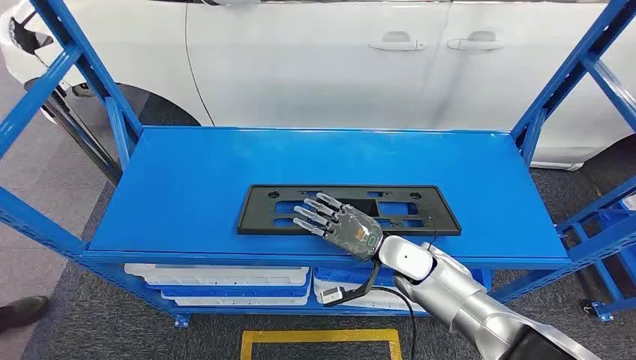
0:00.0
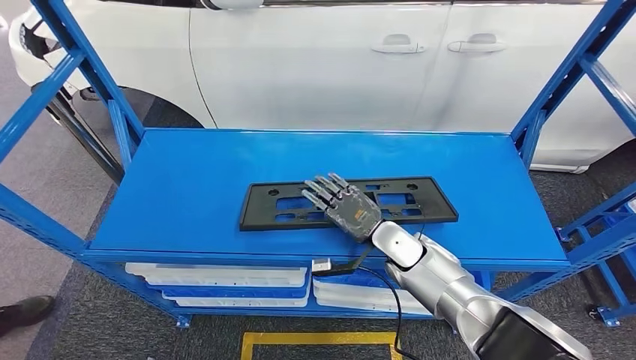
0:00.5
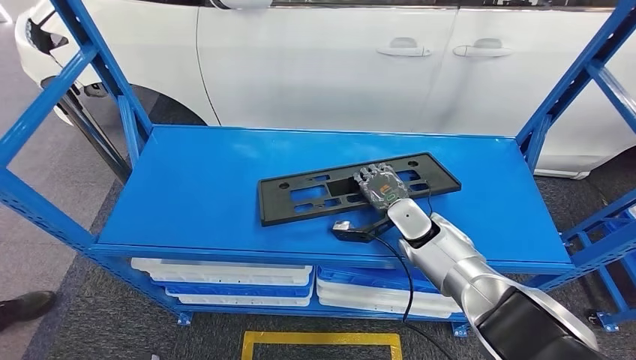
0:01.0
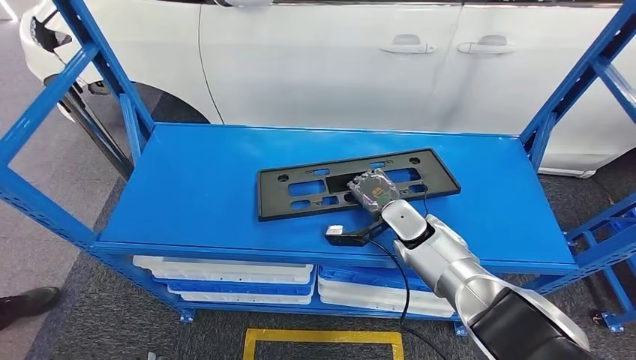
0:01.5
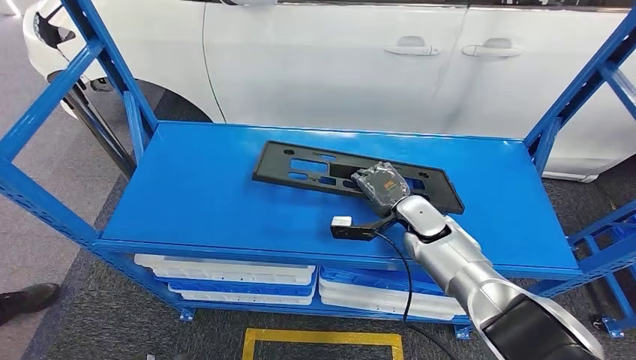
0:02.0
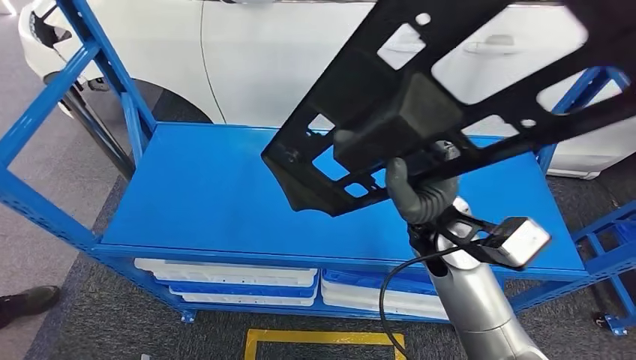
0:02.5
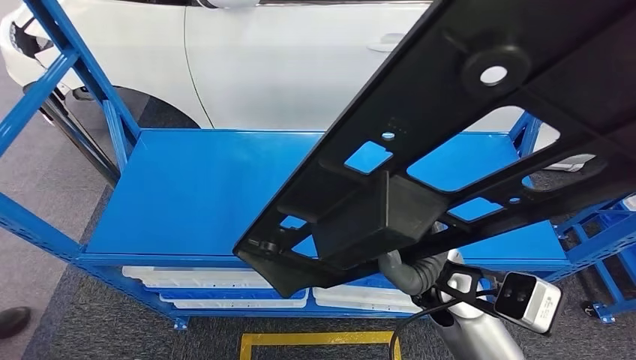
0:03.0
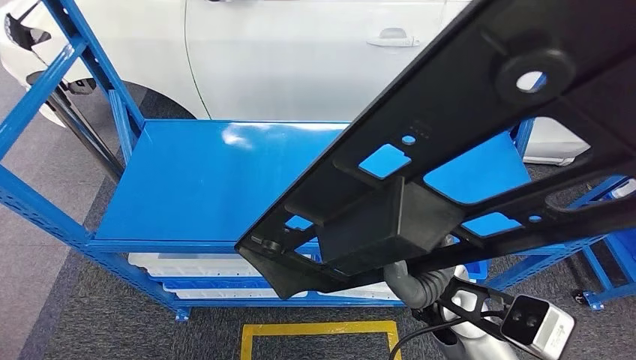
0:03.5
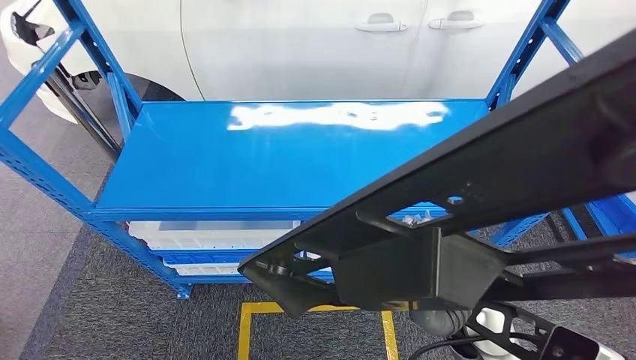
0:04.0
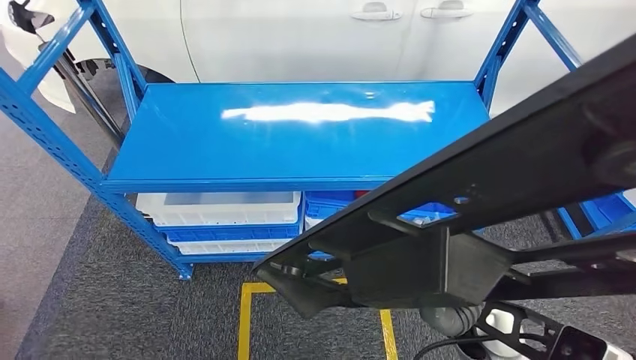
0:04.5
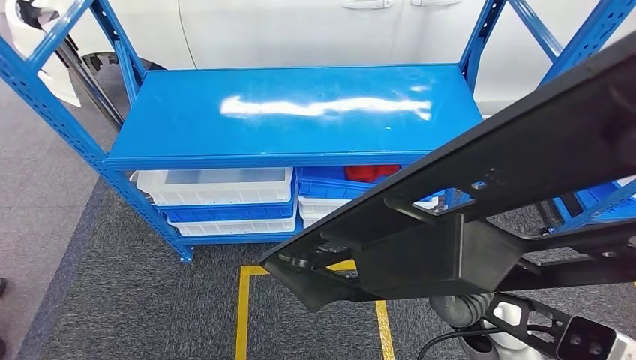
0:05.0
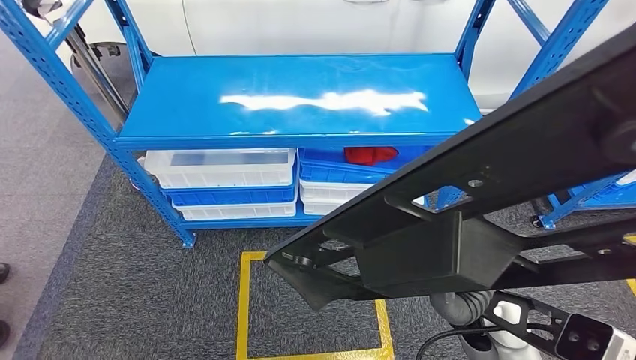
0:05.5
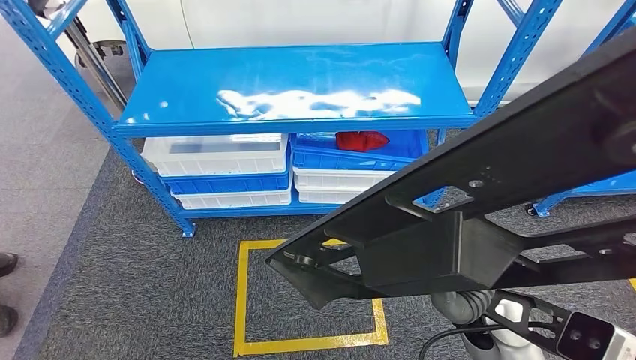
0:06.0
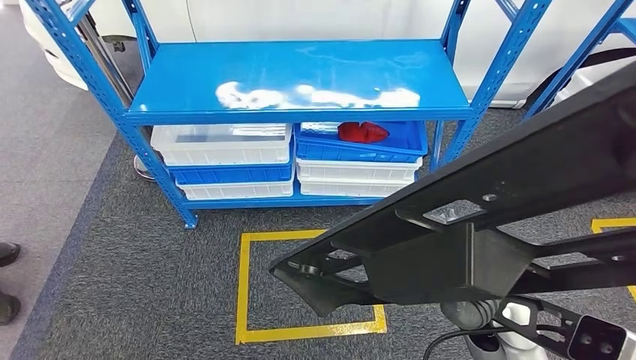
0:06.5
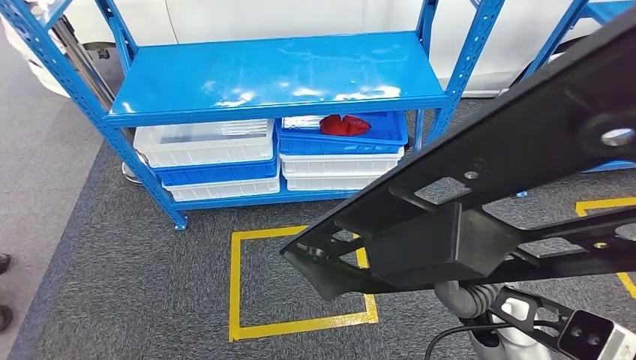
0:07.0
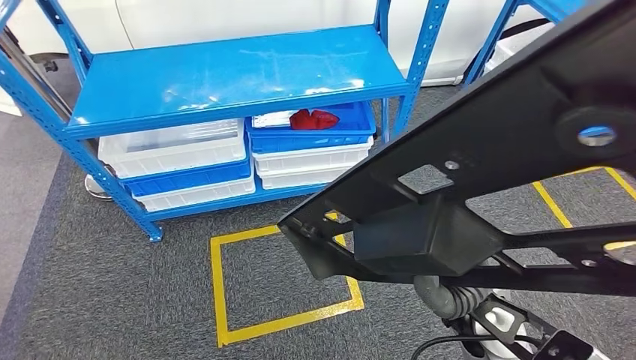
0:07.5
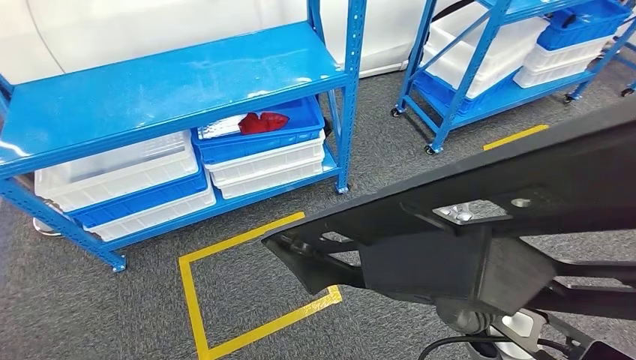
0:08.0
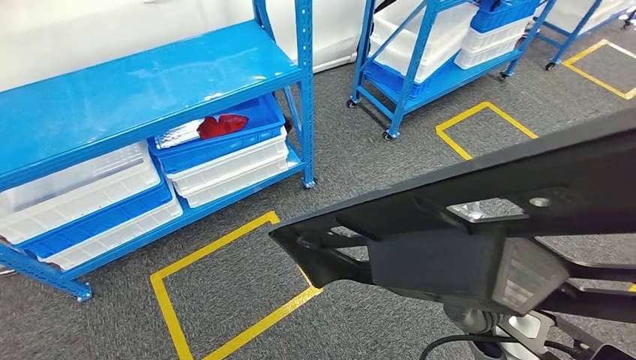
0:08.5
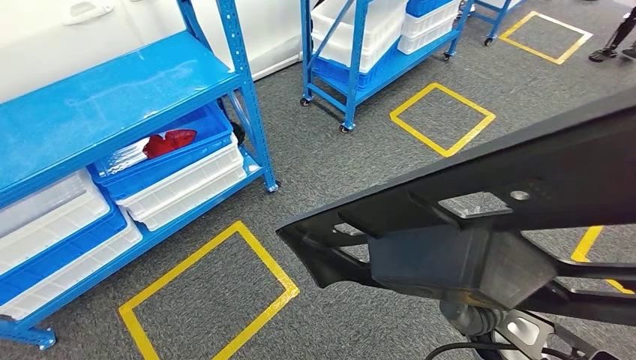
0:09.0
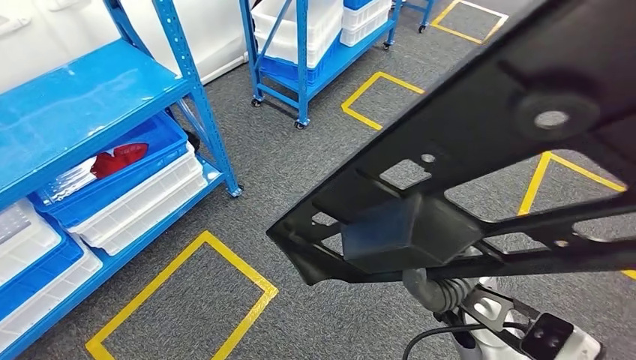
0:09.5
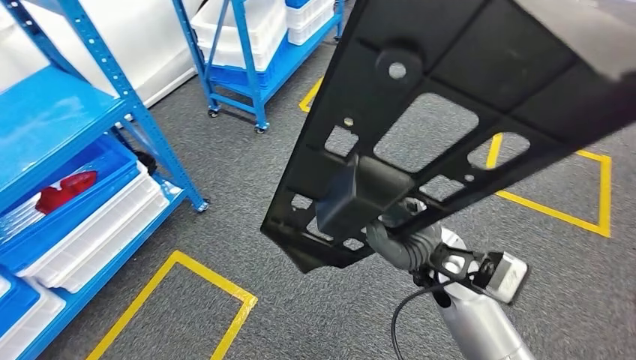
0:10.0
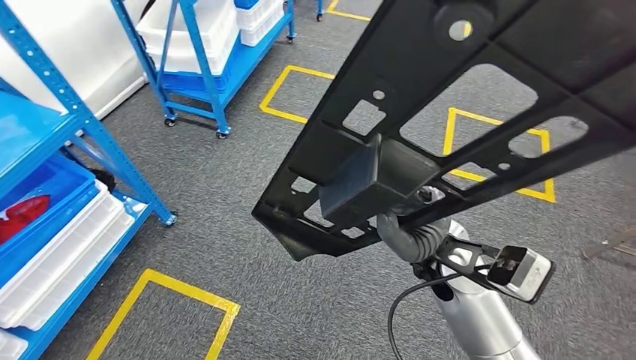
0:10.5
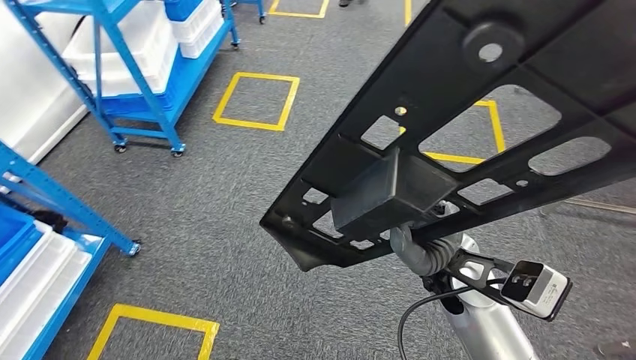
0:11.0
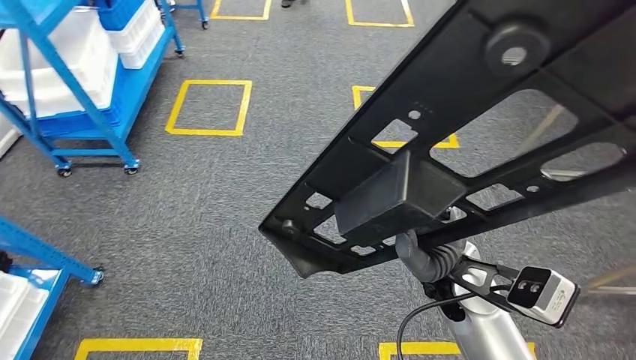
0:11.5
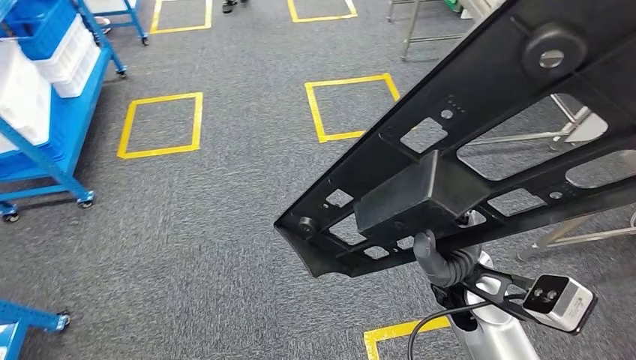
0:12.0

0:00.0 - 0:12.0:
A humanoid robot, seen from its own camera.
Step, 0:00.0 - 0:03.5: Pick up the large material from the shelf.

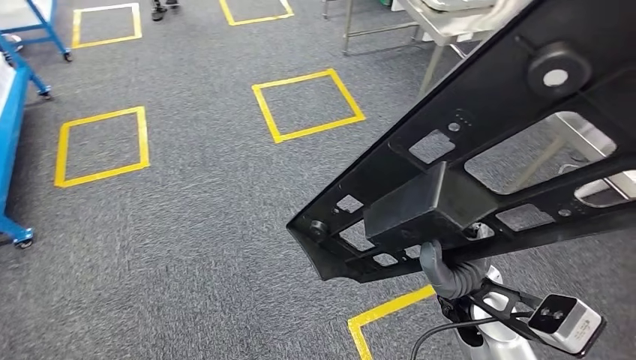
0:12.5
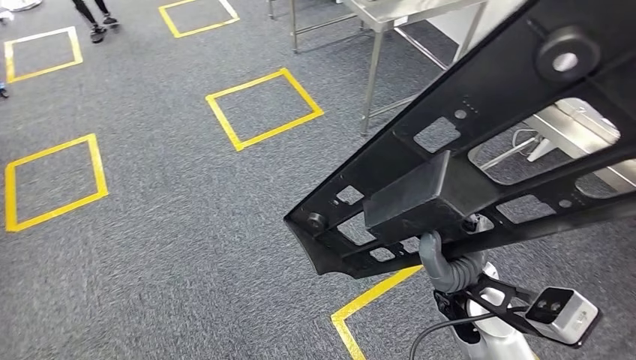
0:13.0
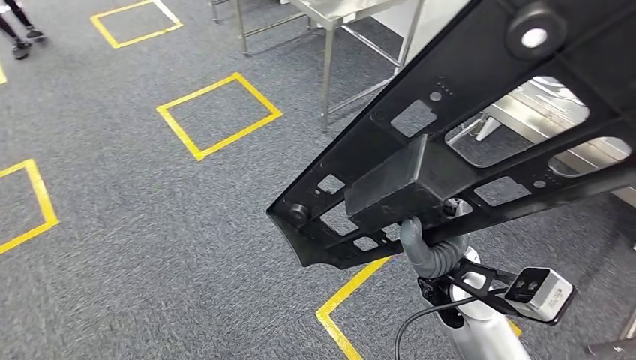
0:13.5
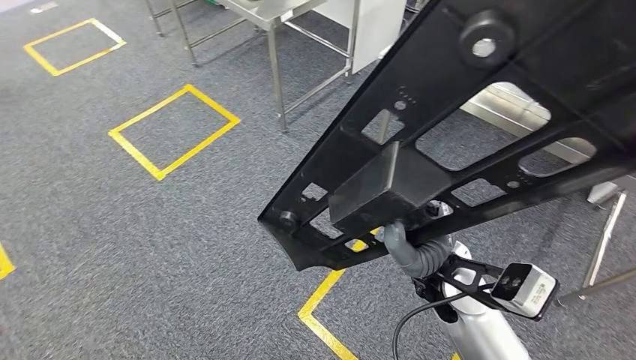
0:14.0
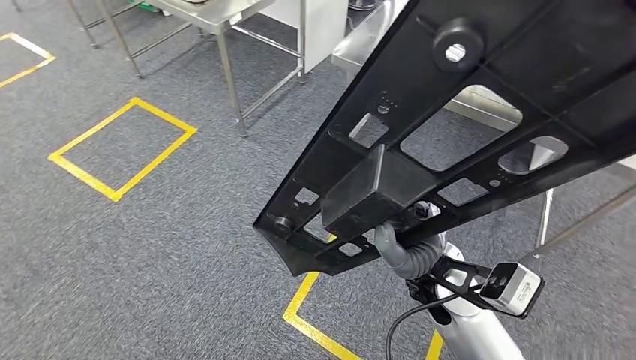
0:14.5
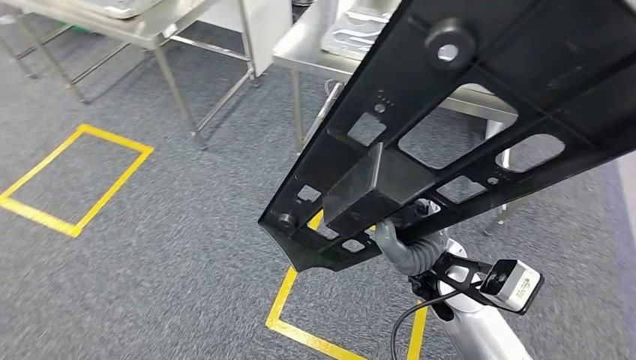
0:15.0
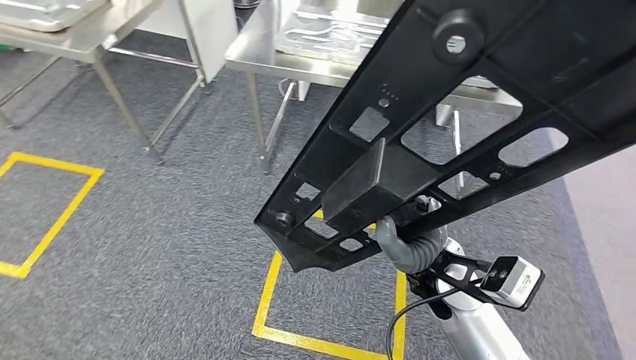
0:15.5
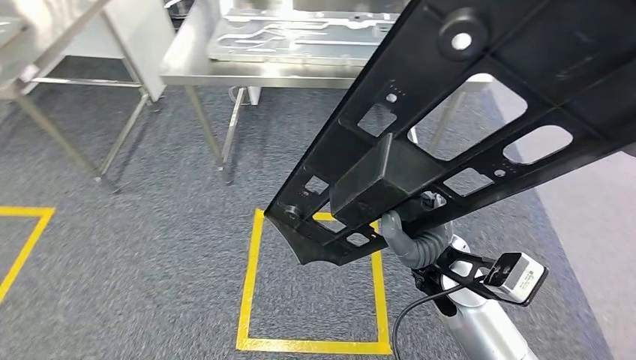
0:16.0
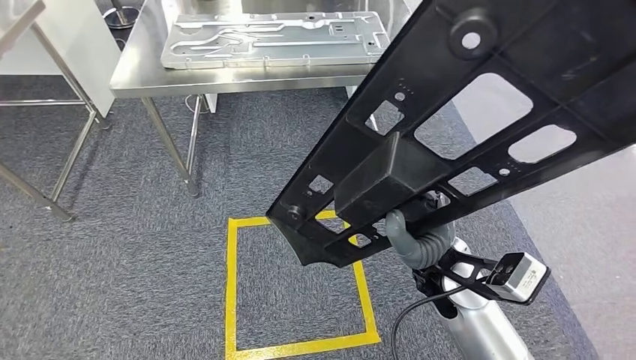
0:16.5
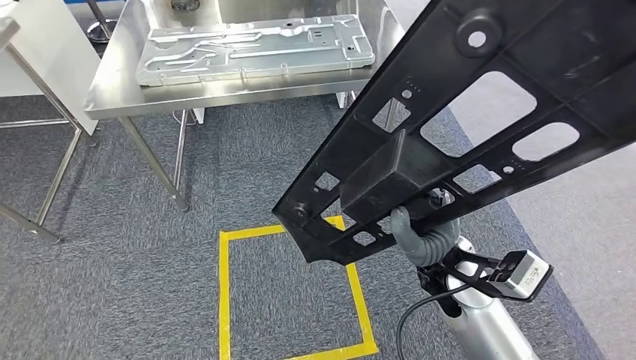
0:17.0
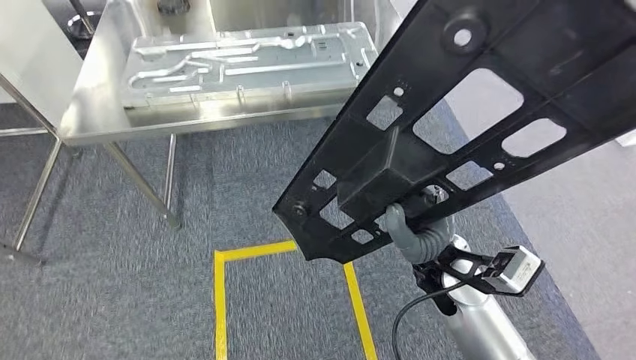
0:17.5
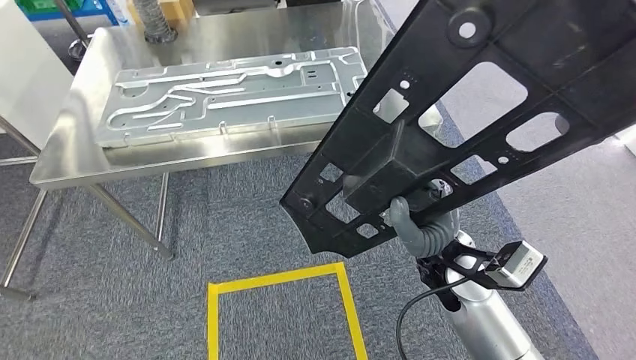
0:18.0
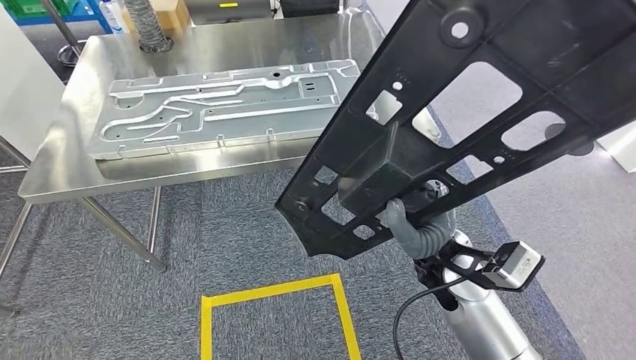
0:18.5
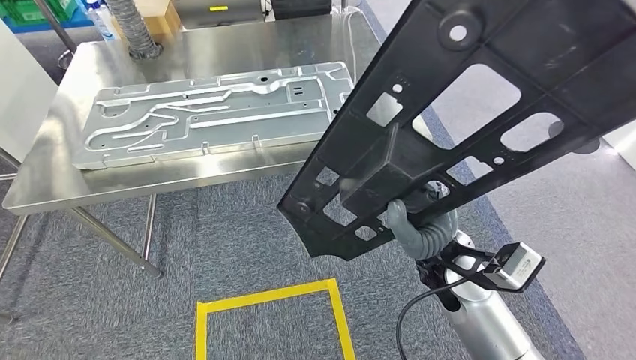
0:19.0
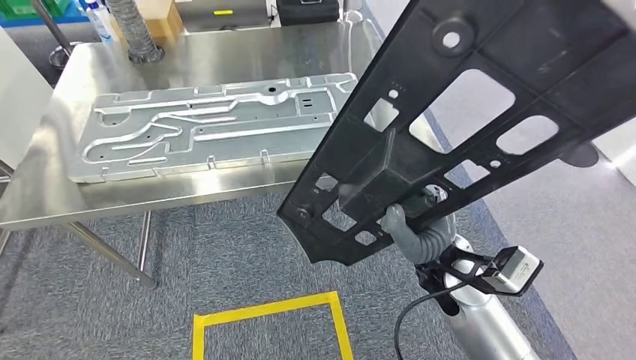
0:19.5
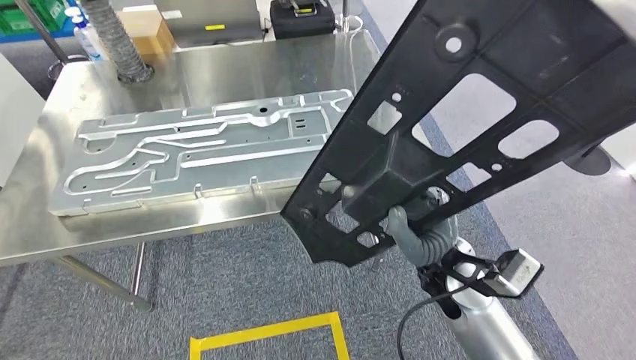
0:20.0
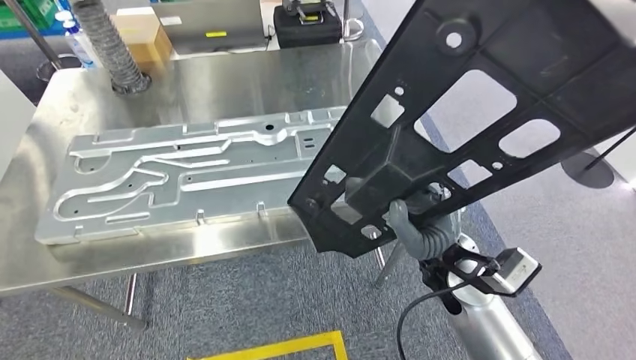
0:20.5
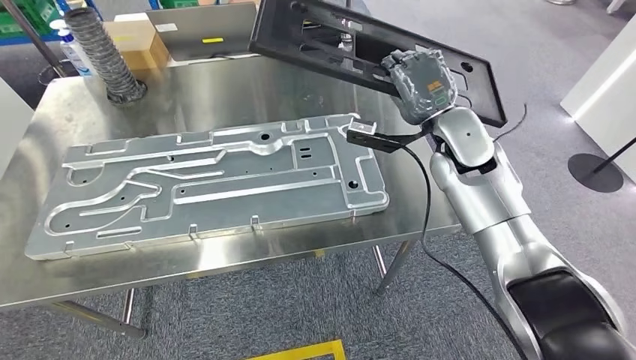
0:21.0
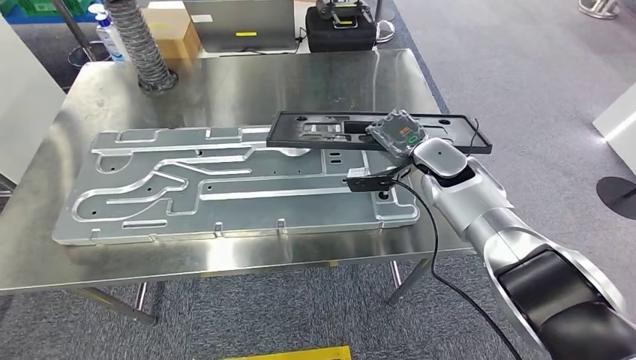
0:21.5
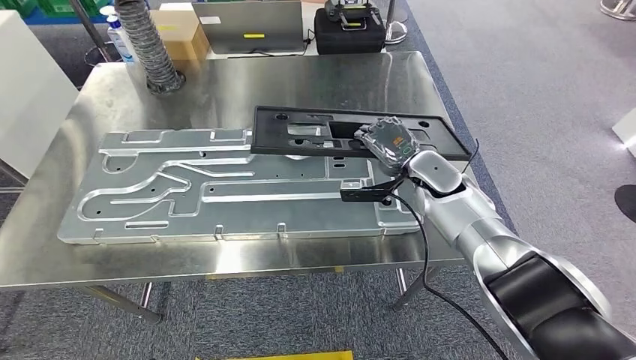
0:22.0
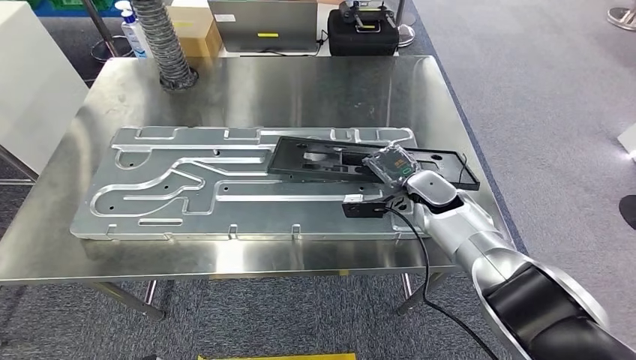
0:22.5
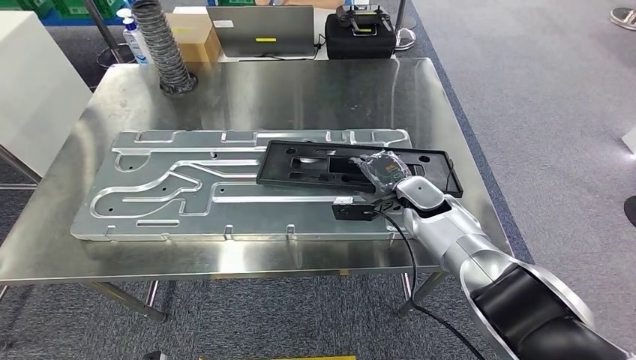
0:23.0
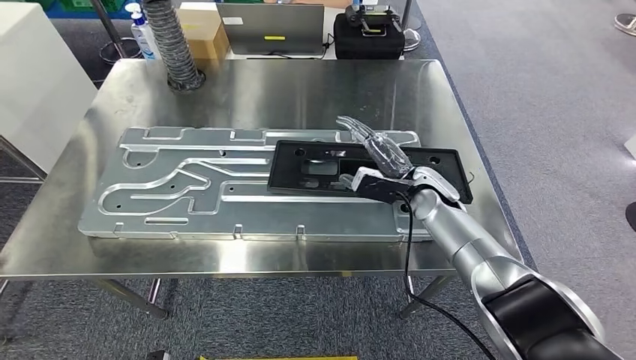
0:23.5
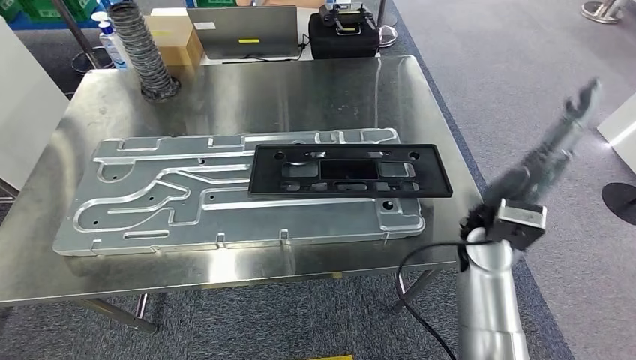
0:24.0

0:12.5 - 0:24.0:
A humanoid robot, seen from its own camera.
Step, 0:12.5 - 0:19.5: Move the large material to the workbench.
